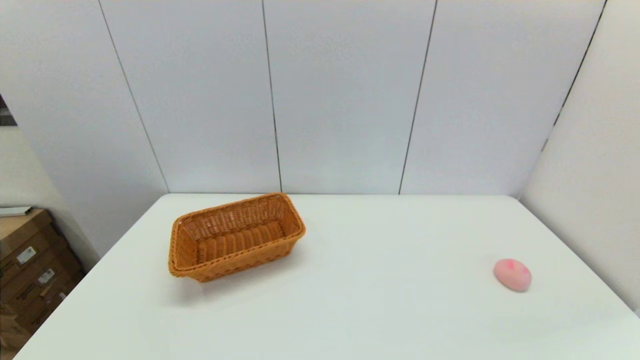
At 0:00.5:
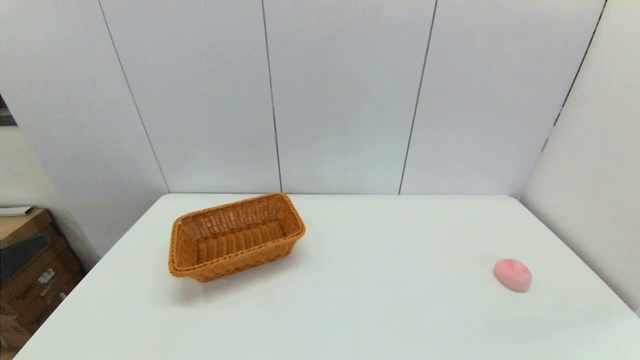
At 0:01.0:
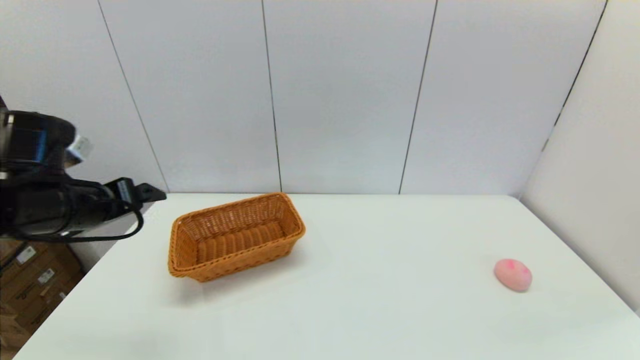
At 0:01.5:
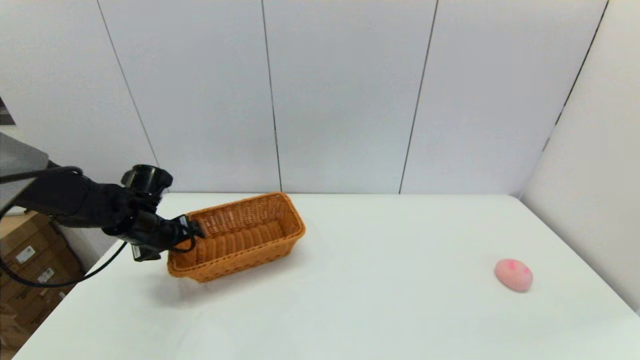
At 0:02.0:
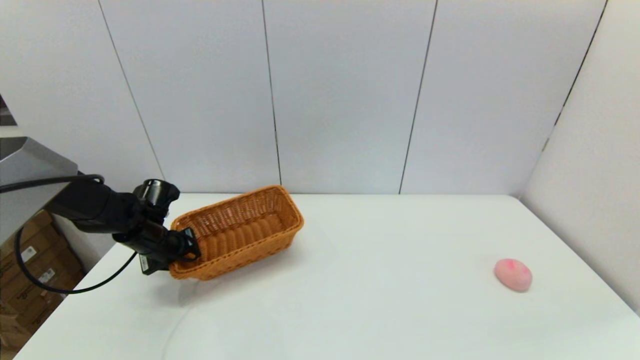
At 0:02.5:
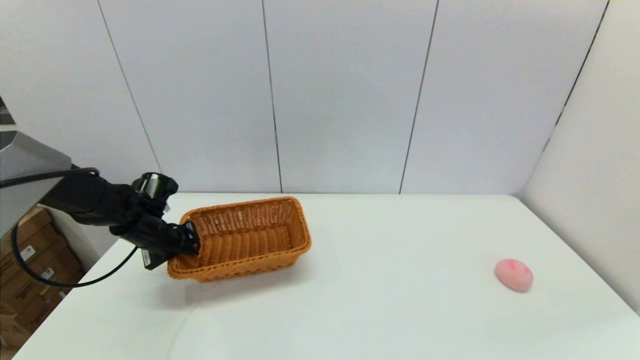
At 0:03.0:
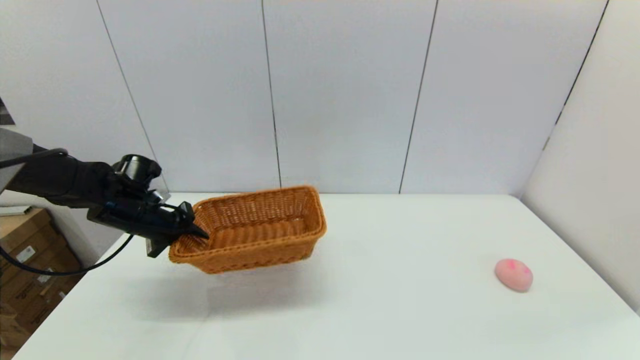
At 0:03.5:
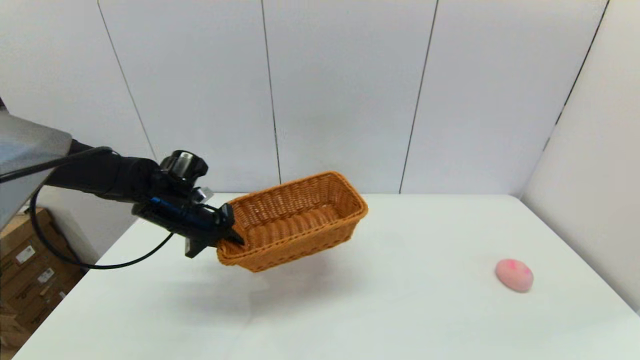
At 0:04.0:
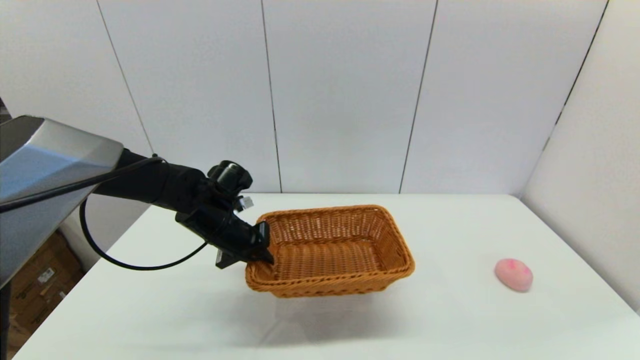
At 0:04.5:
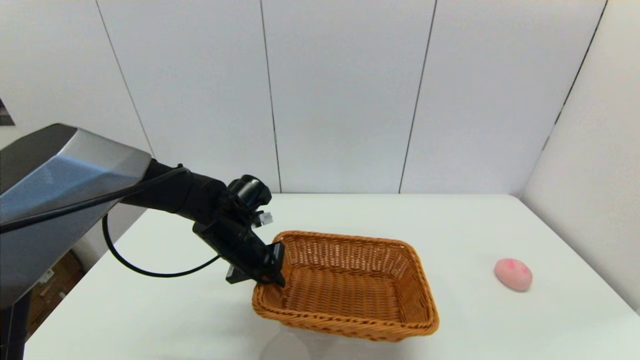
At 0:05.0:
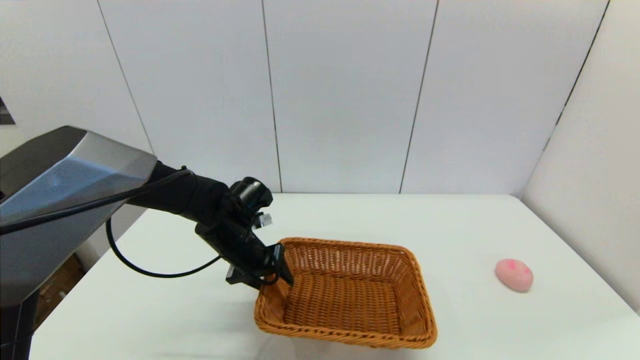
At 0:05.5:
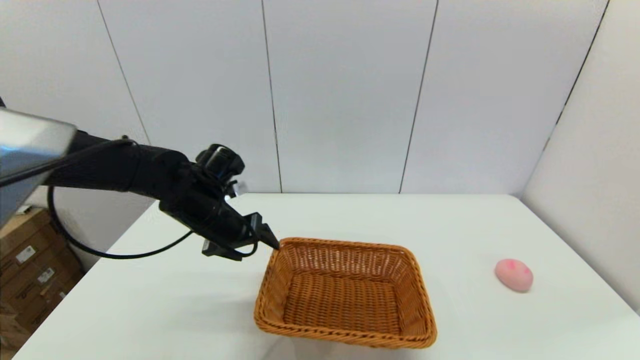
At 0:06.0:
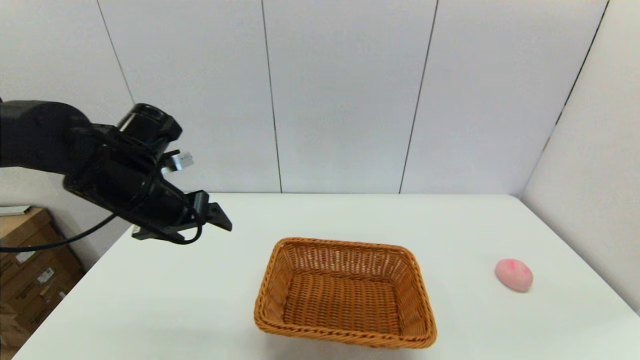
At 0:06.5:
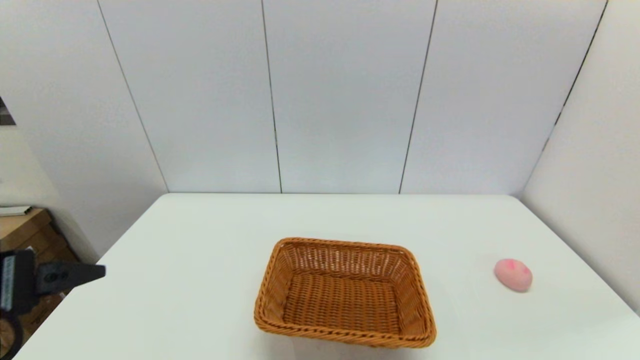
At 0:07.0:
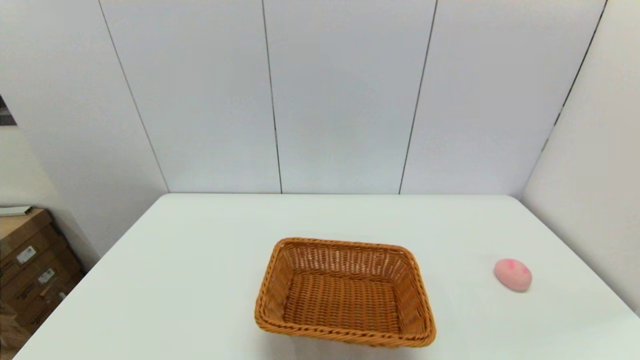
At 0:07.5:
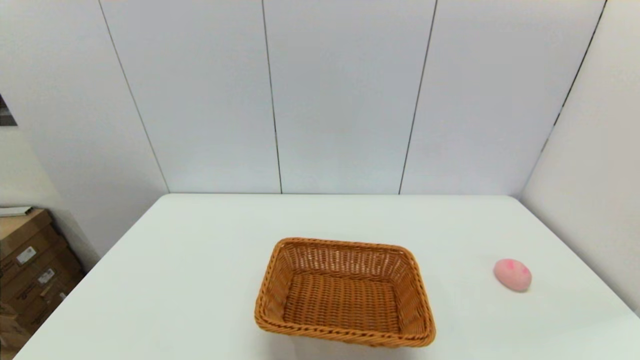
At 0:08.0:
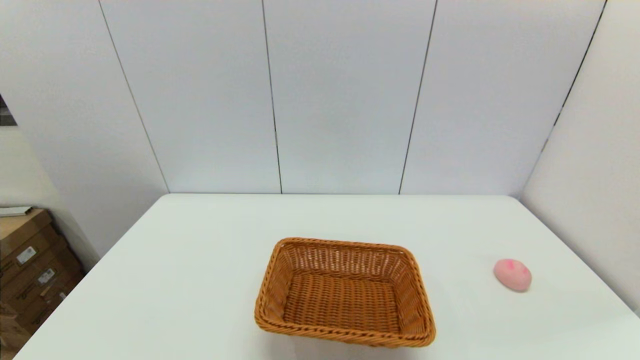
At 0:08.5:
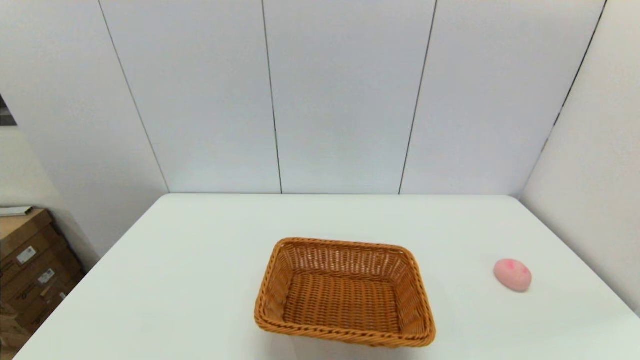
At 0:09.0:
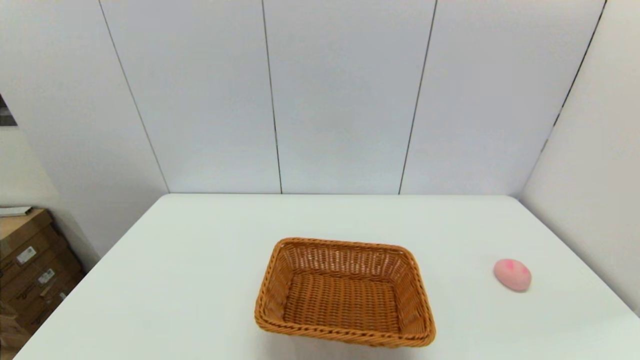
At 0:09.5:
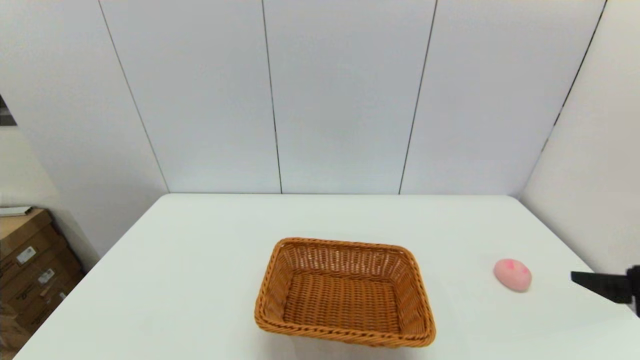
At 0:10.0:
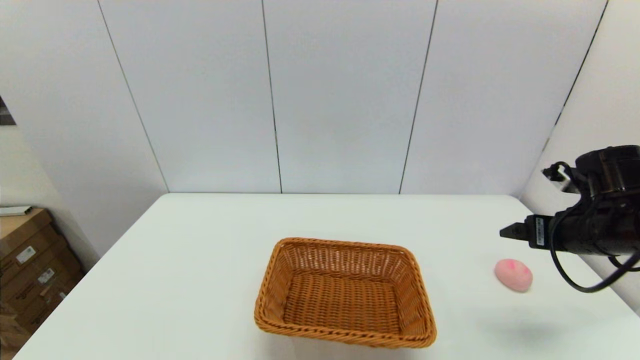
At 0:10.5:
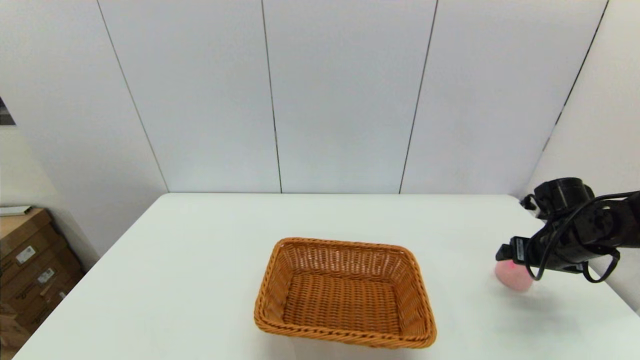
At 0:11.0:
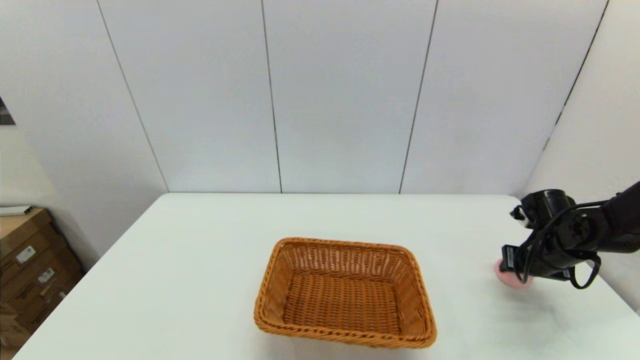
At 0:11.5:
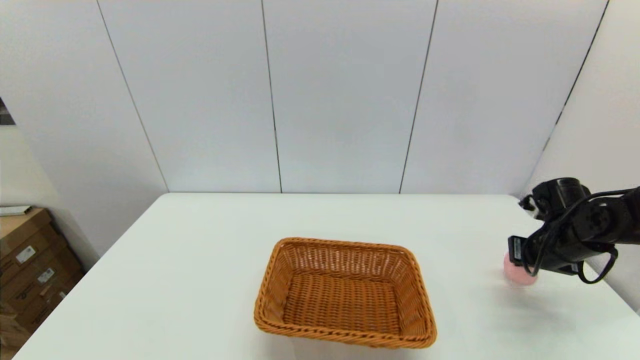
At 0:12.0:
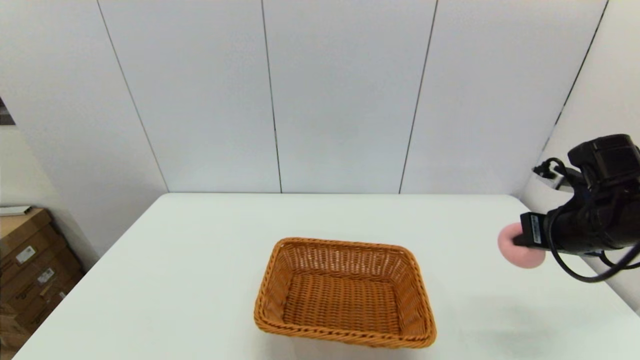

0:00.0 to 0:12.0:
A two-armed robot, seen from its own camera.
Step, 0:00.0 to 0:02.5: Grasp the light basket with the left gripper.
Step, 0:03.0 to 0:05.0: Place the light basket on the middle of the table with the left gripper.
Step, 0:05.5 to 0:11.0: Grasp the peach with the right gripper.
0:00.0 to 0:02.0: The left gripper shifts about 40 cm forward, and closes.
0:02.0 to 0:04.0: The left gripper travels to the right and upward by roughly 15 cm, and closes its fingers.
0:04.0 to 0:06.0: The left gripper moves upward, backward and to the left, some 15 cm, and opens.
0:06.0 to 0:08.0: The left gripper goes approximately 30 cm backward and downward.
0:08.0 to 0:10.0: The right gripper shifts some 30 cm forward.
0:10.0 to 0:12.0: The right gripper moves some 10 cm downward and comes back, and closes its fingers.

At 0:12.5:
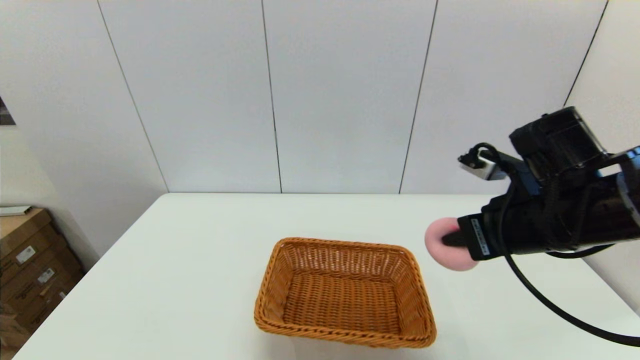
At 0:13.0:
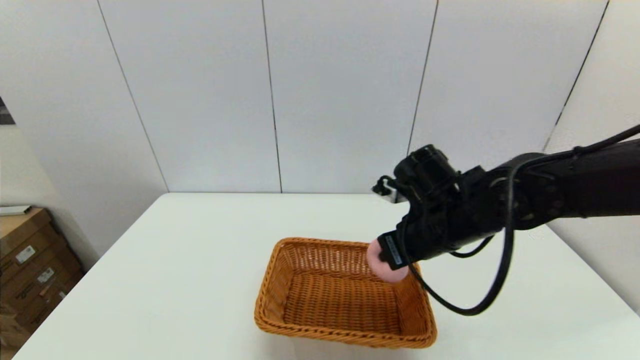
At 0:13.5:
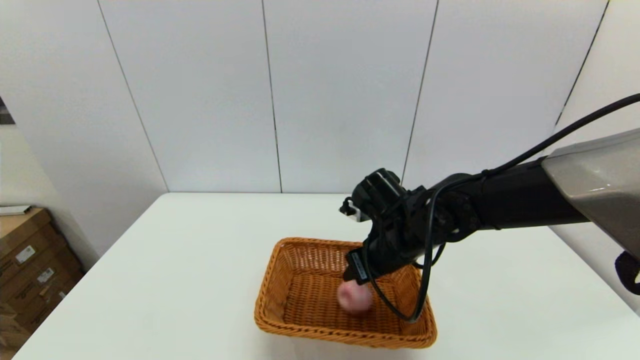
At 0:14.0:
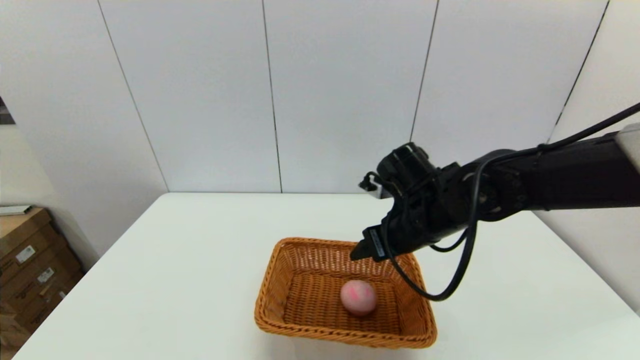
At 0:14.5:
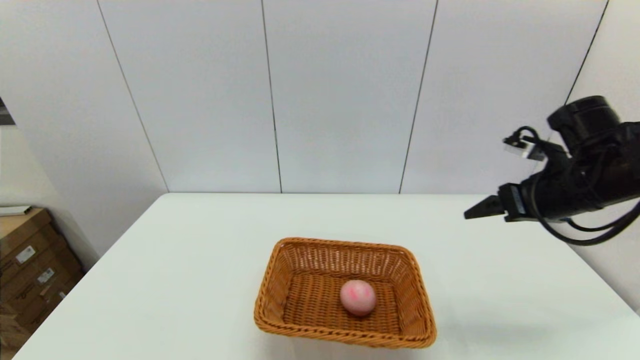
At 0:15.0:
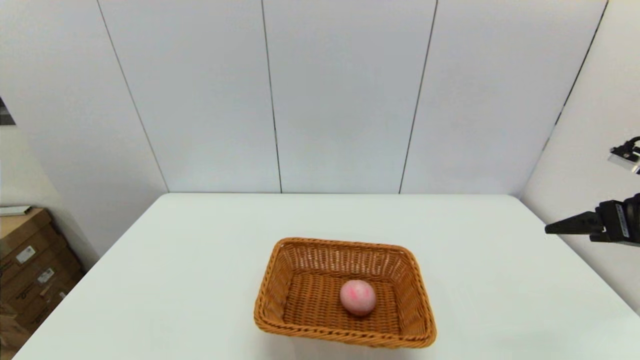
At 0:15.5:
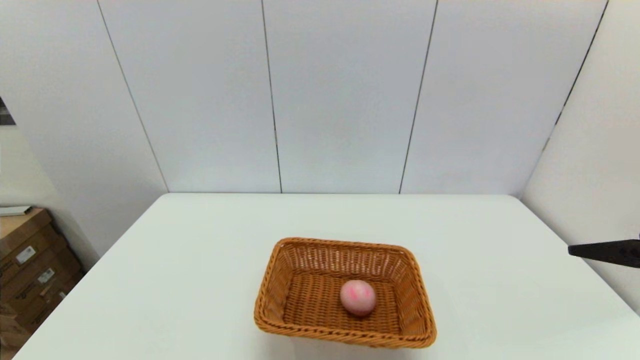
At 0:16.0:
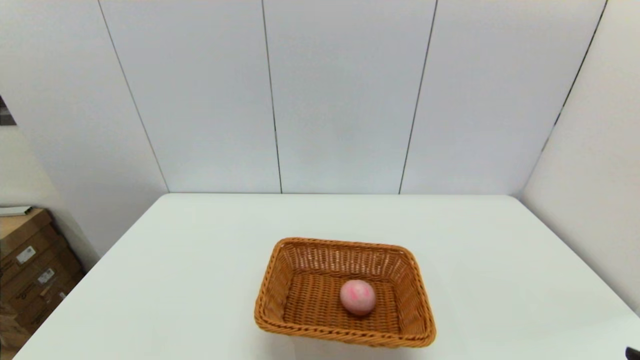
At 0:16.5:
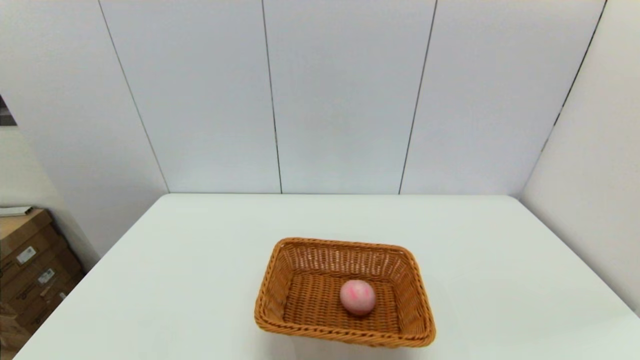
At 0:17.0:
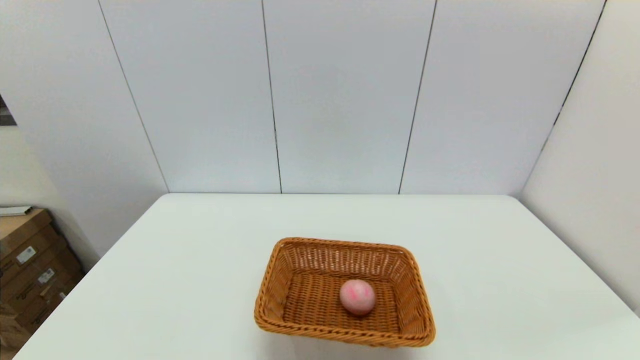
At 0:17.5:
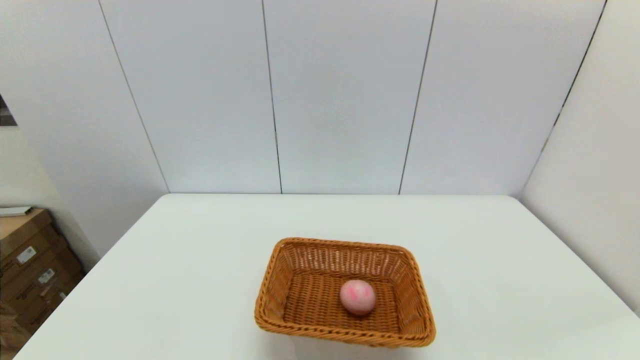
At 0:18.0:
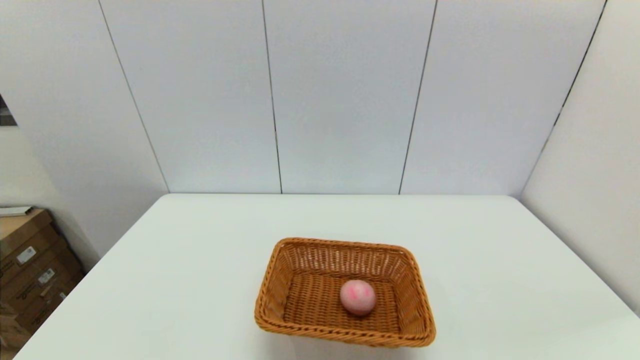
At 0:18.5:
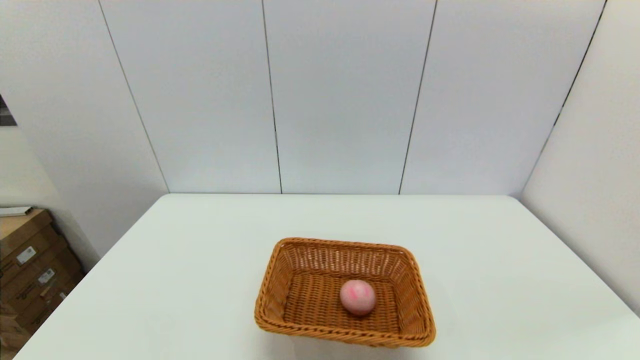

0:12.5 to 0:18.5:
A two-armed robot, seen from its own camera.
0:12.5 to 0:14.5: The right gripper shifts some 10 cm to the right, and opens its fingers.
0:14.5 to 0:16.5: The right gripper heads backward, covering some 30 cm.
